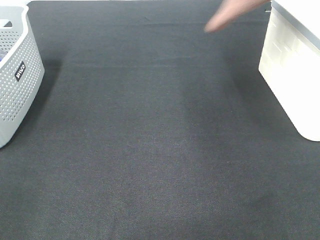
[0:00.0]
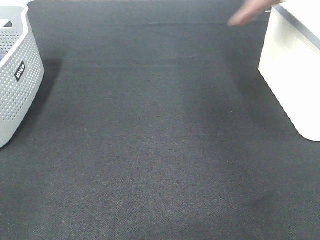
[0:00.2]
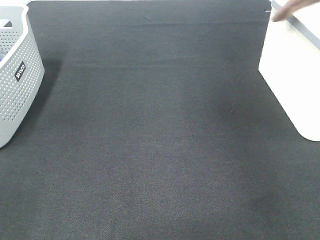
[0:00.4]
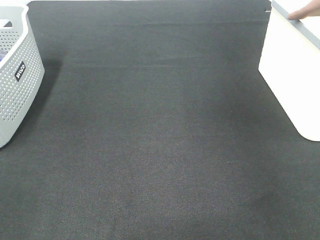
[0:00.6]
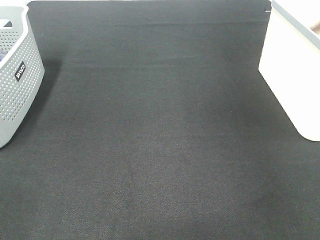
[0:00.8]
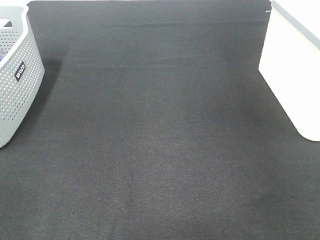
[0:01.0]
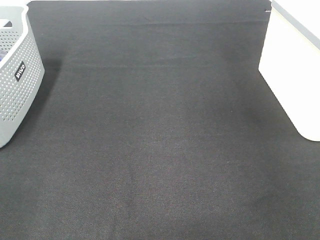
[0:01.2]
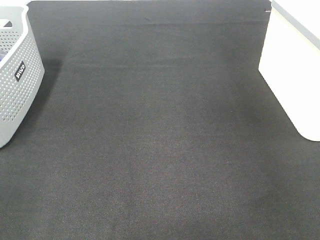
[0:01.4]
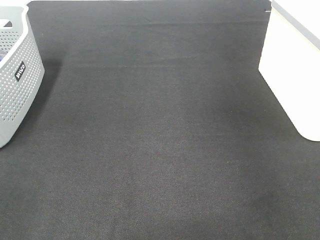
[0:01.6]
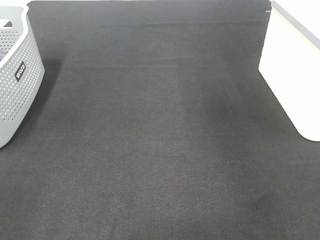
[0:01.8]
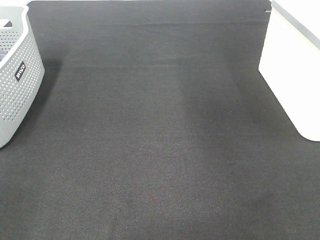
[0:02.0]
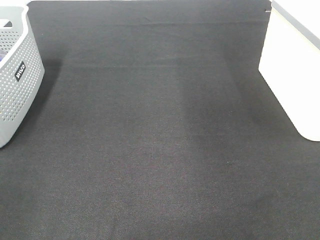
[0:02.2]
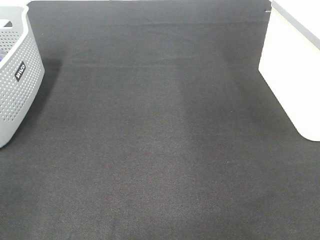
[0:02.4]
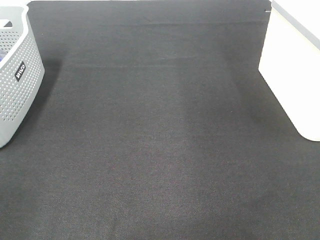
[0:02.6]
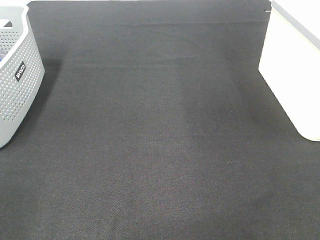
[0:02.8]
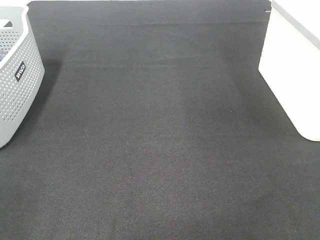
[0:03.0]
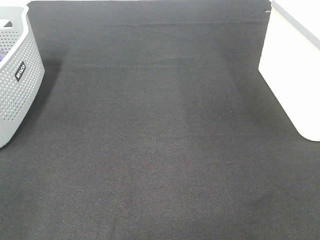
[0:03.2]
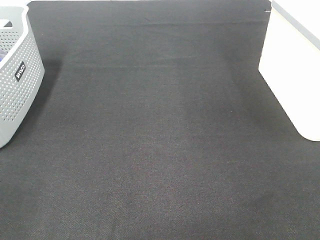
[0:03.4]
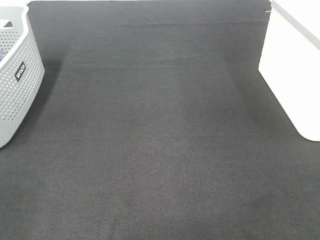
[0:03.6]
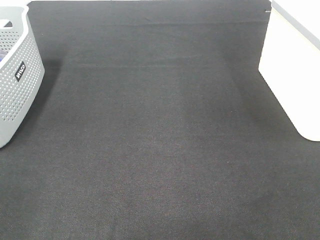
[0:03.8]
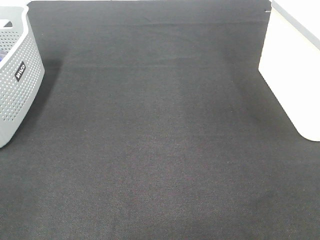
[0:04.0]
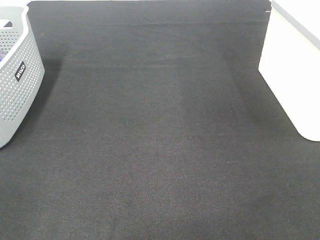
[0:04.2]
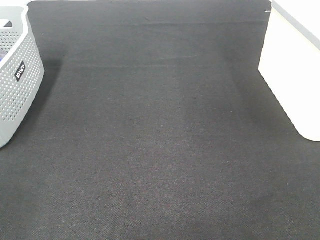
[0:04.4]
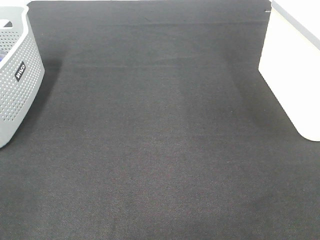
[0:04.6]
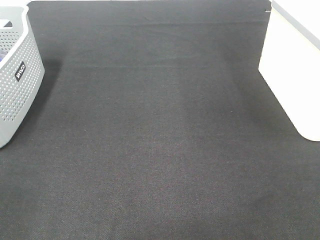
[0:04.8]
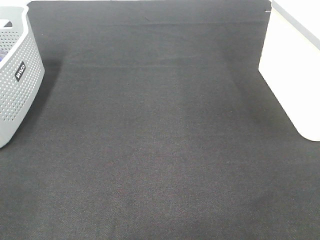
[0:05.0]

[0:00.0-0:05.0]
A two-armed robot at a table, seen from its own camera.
Step, 0:00.0 to 0:01.2: Right hand: place the brown towel in right basket.
0:00.0 to 0:01.6: The right gripper is displaced to the right by some 10 cm, and opens up.

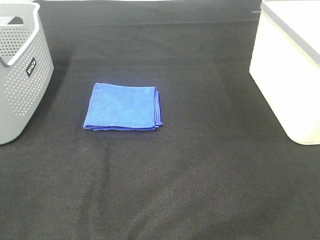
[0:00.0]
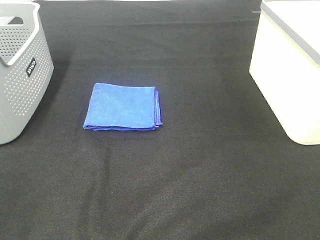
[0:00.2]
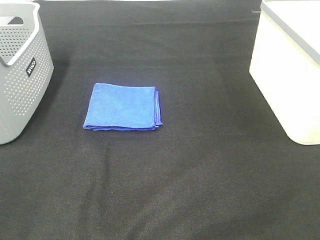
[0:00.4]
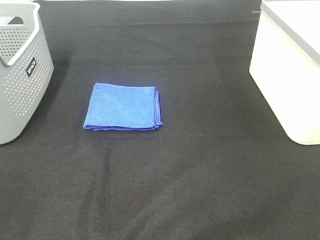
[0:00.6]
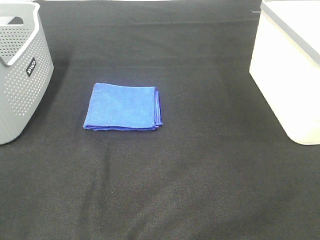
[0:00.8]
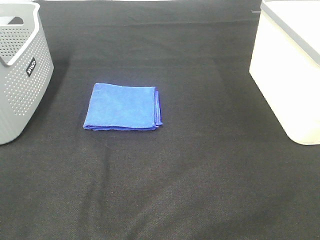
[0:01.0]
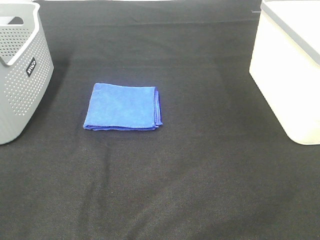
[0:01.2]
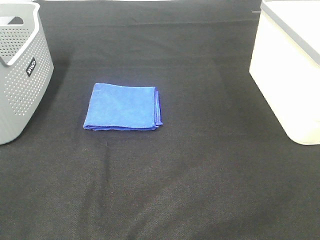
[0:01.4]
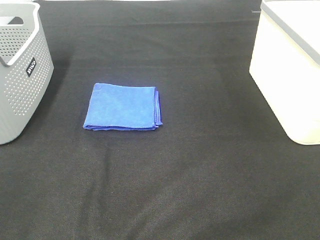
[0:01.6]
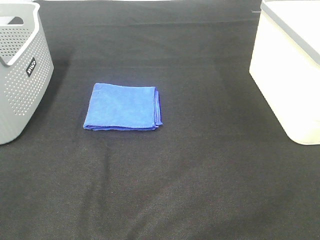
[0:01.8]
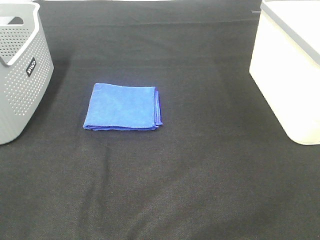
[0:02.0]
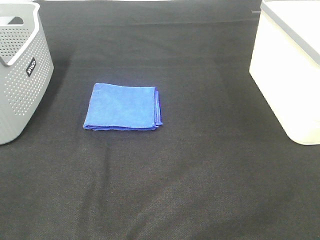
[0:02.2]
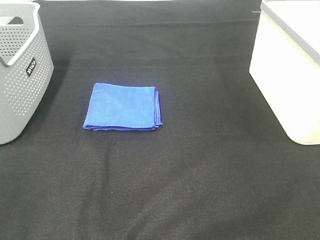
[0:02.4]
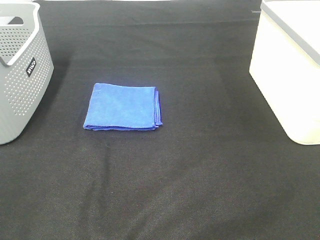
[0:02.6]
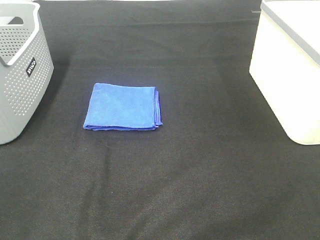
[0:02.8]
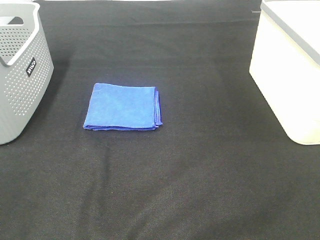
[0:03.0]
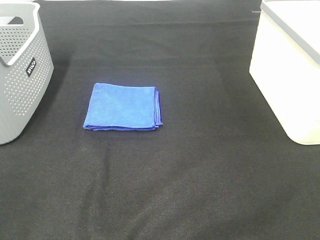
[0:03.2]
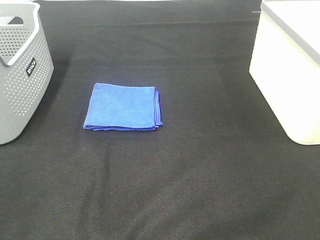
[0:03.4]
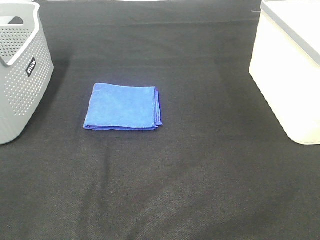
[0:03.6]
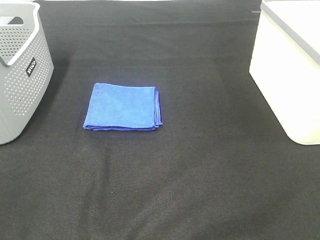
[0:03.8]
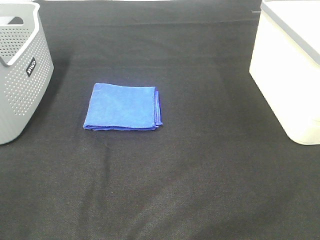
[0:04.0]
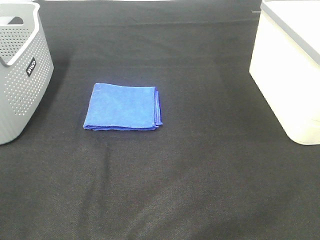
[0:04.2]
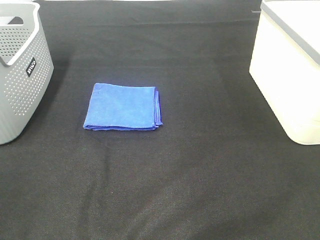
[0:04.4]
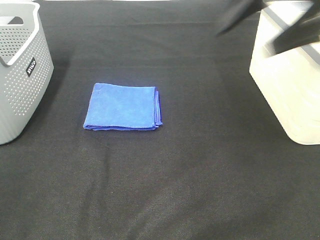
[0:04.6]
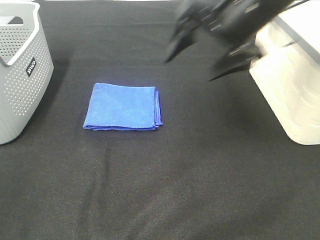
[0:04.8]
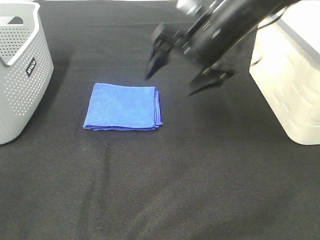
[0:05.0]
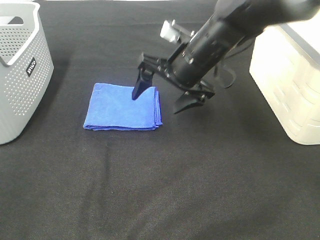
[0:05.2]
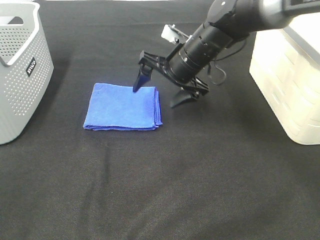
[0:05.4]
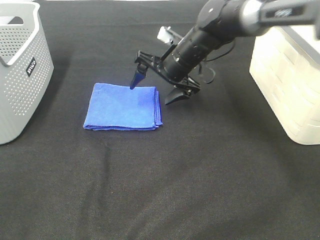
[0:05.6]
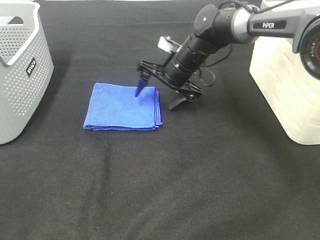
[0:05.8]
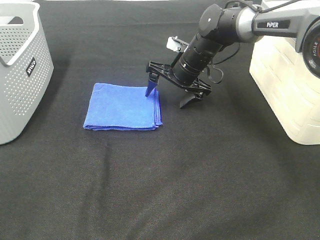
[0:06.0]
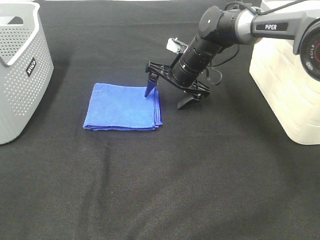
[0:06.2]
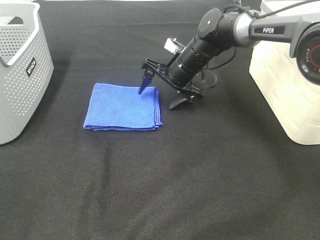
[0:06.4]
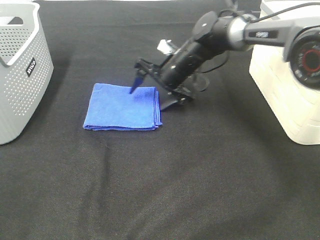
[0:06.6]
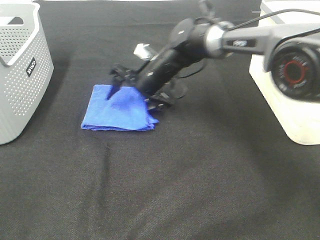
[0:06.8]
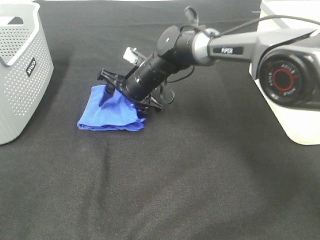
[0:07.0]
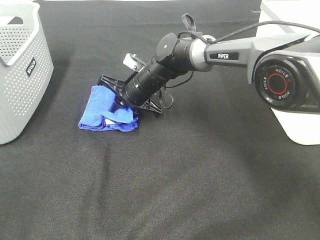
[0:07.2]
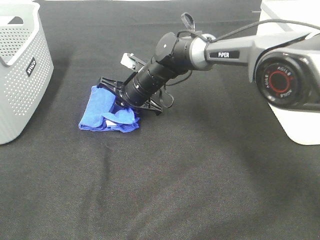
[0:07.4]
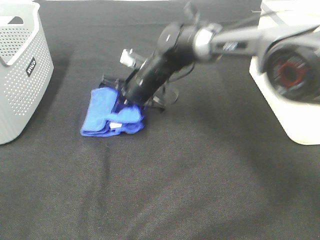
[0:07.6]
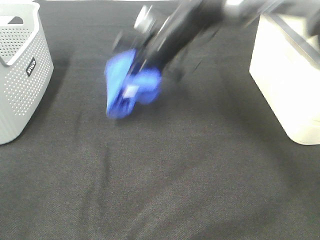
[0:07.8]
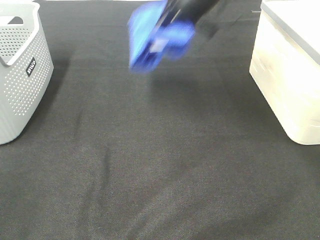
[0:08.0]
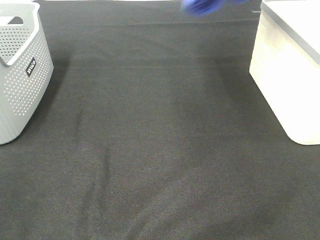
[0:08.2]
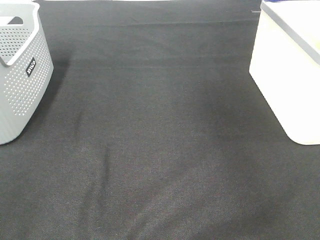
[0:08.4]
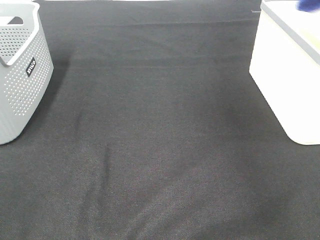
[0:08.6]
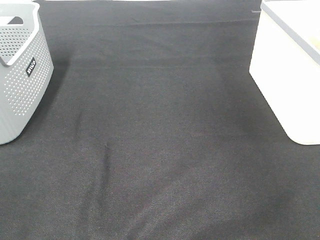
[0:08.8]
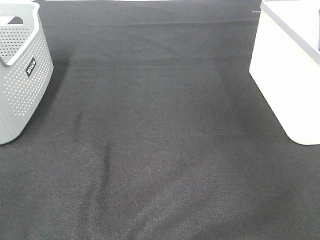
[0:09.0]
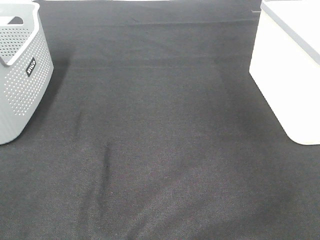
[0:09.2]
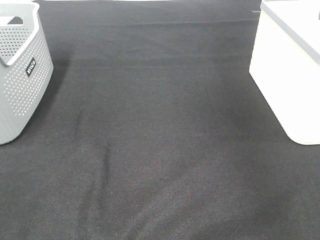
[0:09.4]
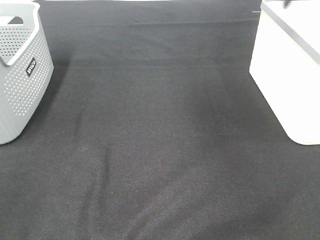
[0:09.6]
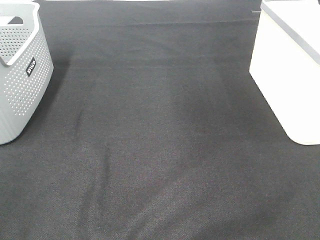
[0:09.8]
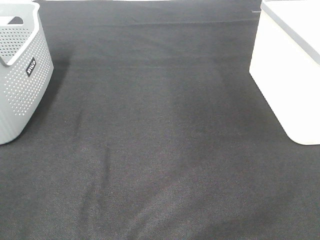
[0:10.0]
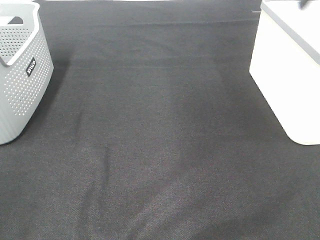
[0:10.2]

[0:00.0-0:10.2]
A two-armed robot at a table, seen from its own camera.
Step, 0:00.0 to 0:07.2: Right hand: grab the folded blue towel.
Step, 0:07.4 to 0:09.2: Right hand: place the blue towel in right basket.
0:00.0 to 0:03.0: The two grippers keep their place.
0:04.4 to 0:05.8: The right gripper travels downward, forward and to the left by approximately 40 cm.
0:05.8 to 0:07.2: The right gripper heads to the left, covering approximately 10 cm, and closes its fingers.
0:07.2 to 0:08.8: The right gripper moves to the right and upward, roughly 50 cm.

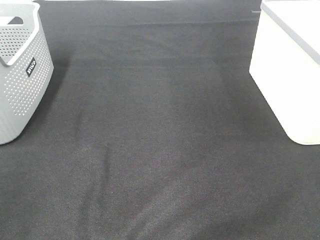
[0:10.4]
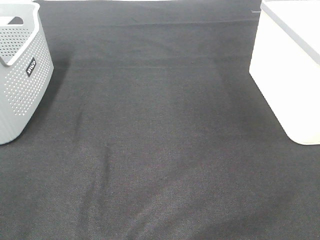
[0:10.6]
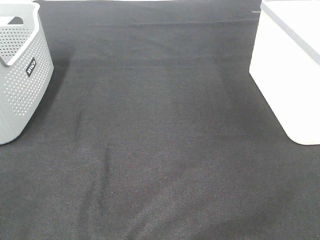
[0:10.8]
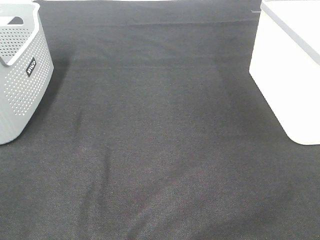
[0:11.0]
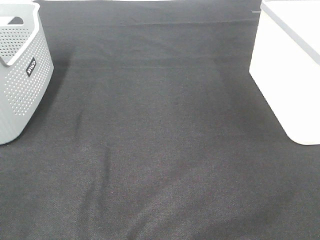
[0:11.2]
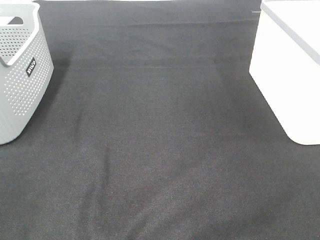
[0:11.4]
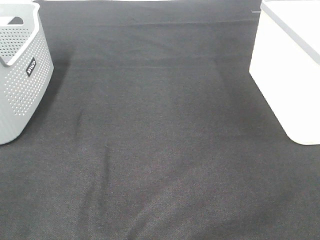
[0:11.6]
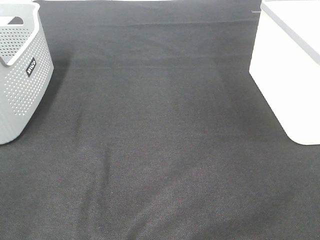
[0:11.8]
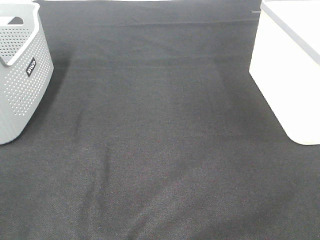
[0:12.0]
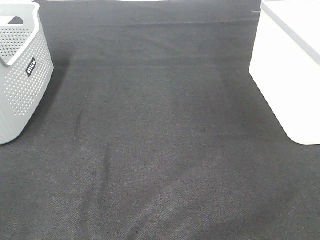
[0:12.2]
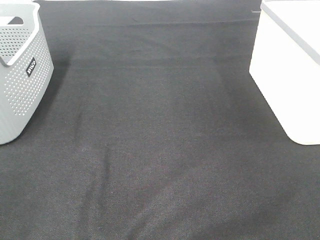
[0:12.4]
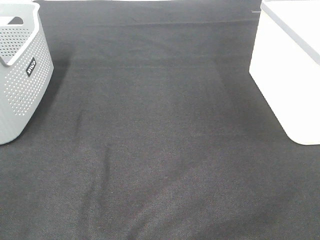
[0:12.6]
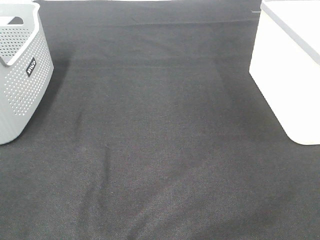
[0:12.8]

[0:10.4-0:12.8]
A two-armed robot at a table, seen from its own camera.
0:11.6 to 0:12.8: Neither gripper changes place.

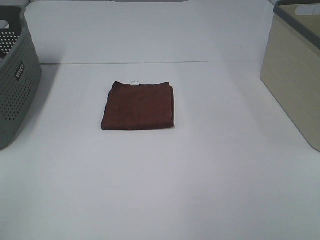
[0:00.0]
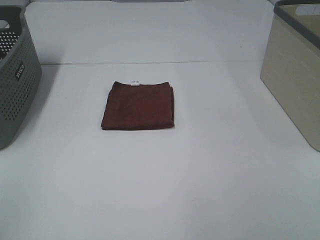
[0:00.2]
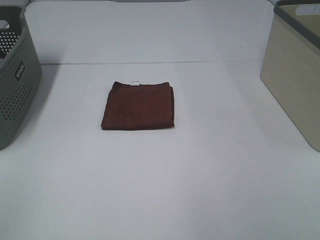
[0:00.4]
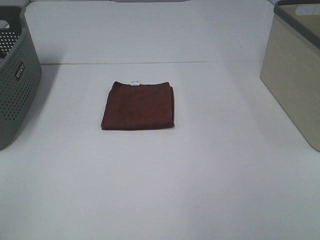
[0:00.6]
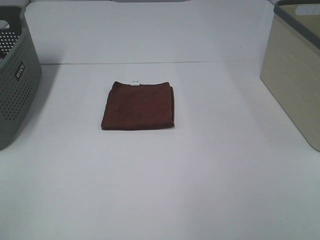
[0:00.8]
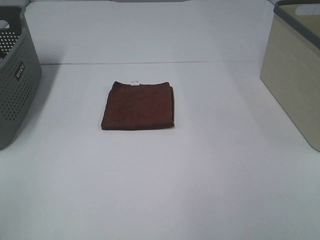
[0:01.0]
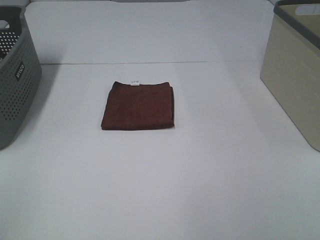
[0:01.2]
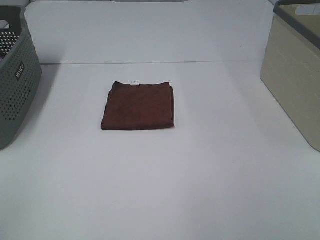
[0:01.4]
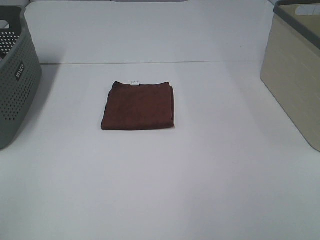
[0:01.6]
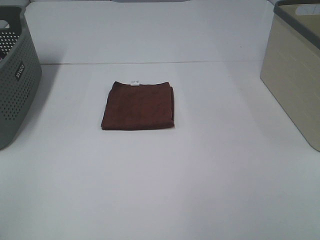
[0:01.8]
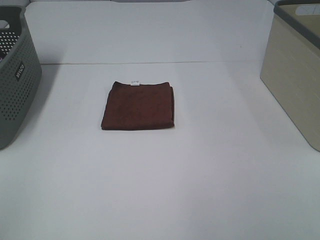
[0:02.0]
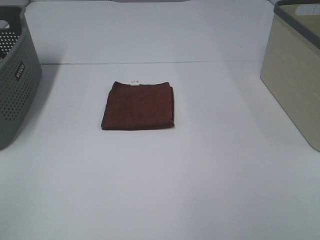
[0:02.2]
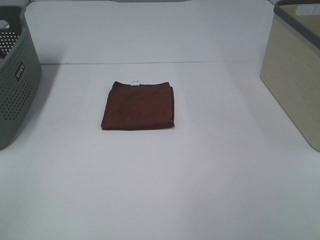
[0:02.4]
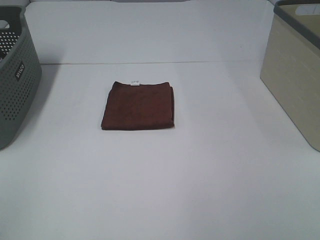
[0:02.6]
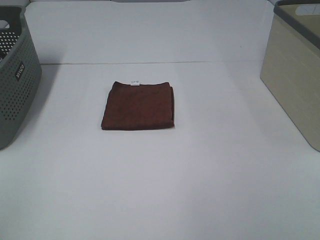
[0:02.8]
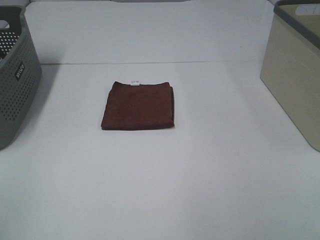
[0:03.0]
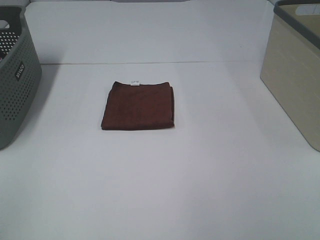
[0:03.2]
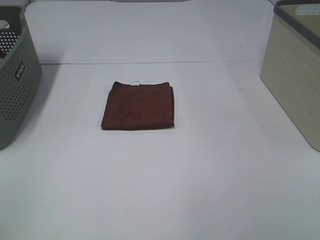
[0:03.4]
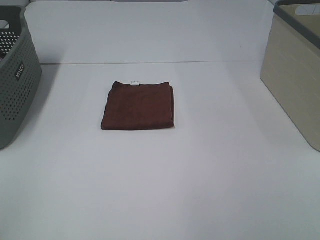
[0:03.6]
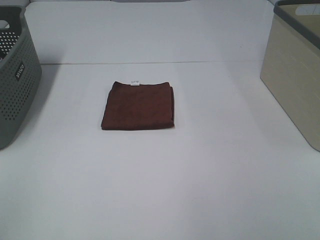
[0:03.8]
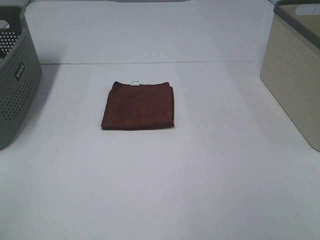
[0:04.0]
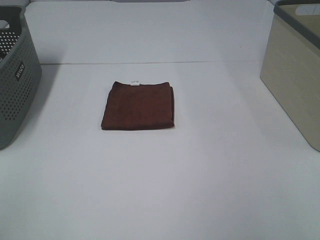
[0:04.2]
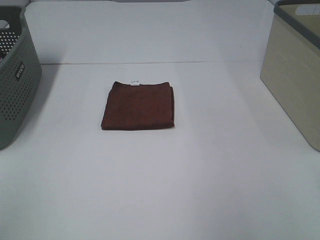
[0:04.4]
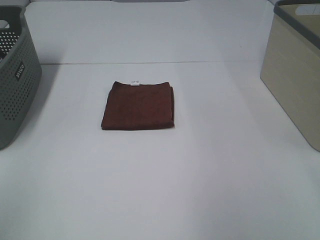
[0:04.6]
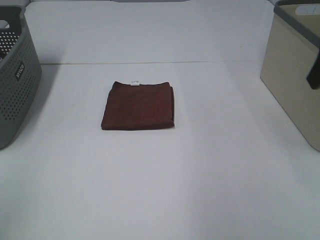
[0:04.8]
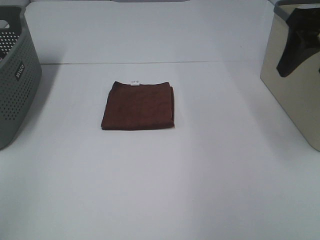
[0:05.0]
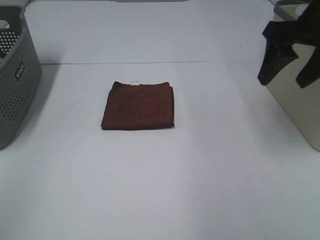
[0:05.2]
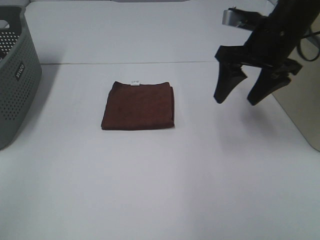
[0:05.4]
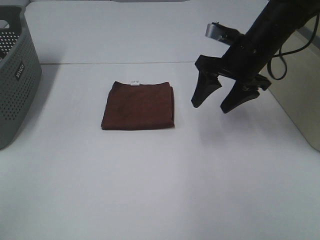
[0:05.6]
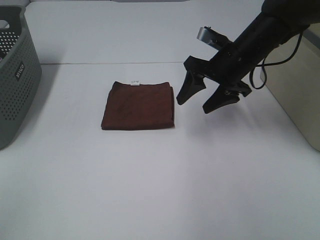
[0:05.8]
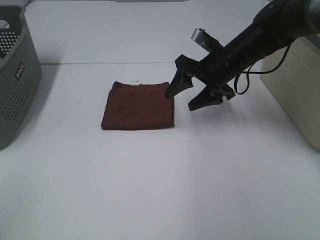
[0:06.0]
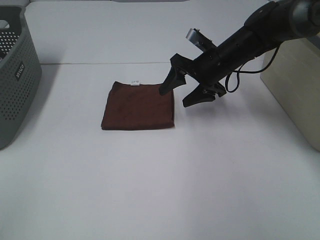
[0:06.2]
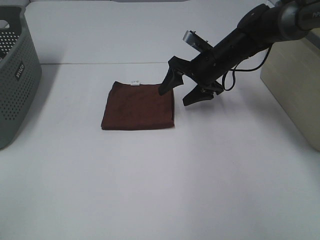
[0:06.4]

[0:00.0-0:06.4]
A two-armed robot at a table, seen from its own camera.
0:00.0 to 0:03.2: The two grippers keep their place.
0:04.8 to 0:06.4: The right gripper travels downward, forward and to the left by some 30 cm.
